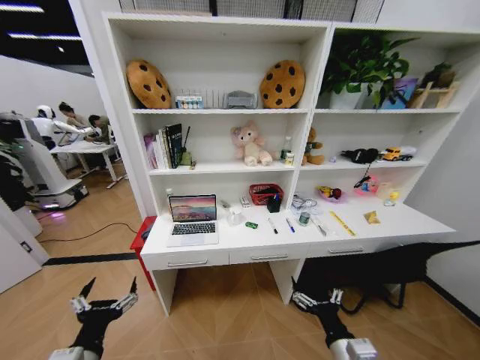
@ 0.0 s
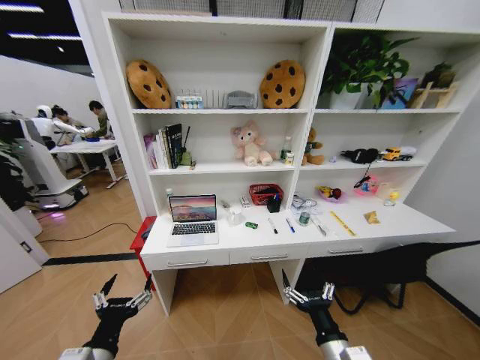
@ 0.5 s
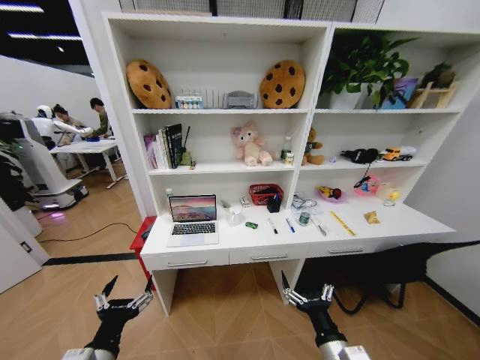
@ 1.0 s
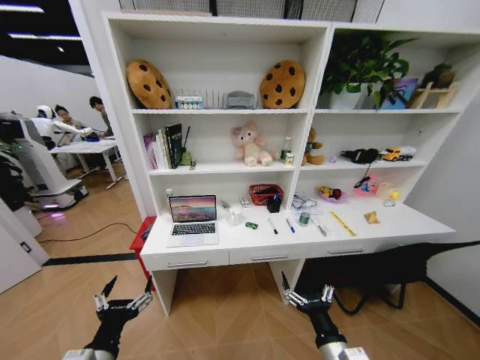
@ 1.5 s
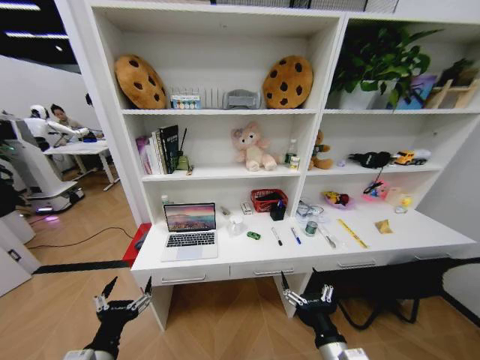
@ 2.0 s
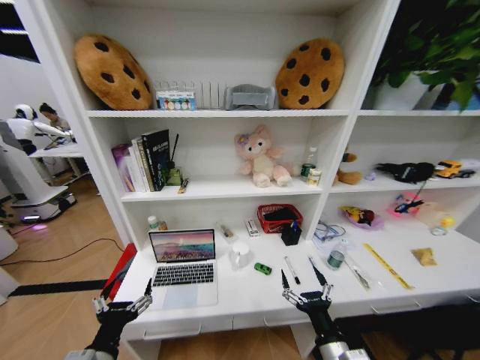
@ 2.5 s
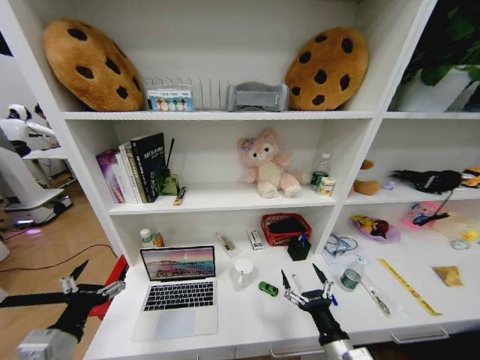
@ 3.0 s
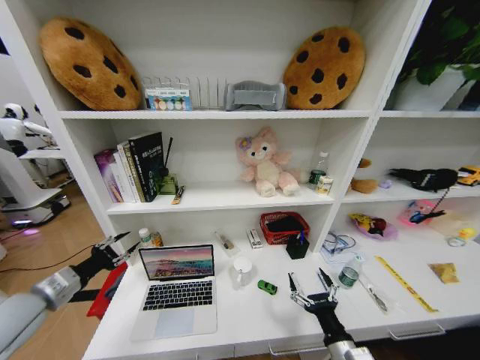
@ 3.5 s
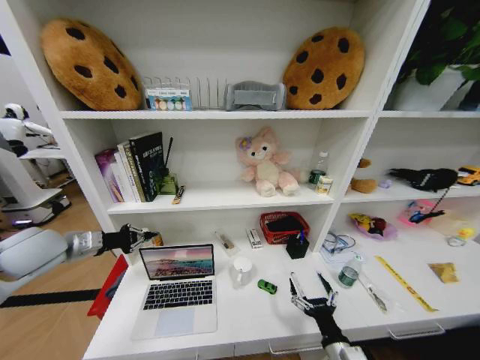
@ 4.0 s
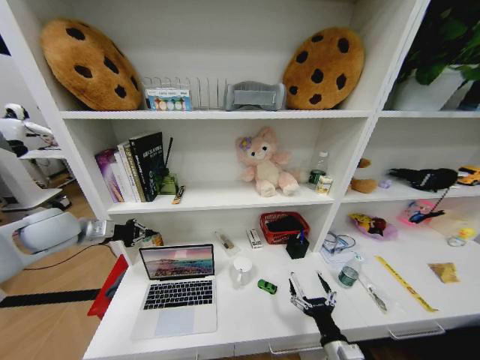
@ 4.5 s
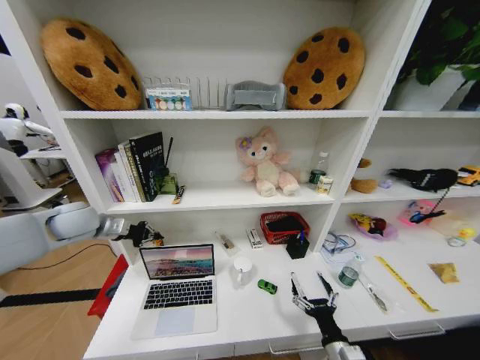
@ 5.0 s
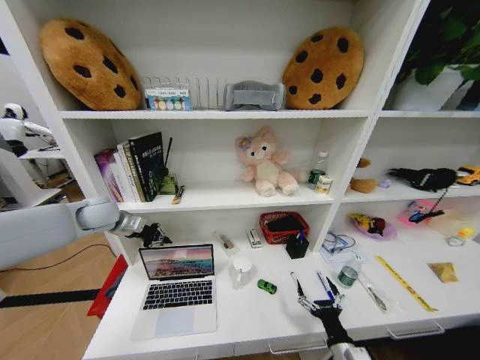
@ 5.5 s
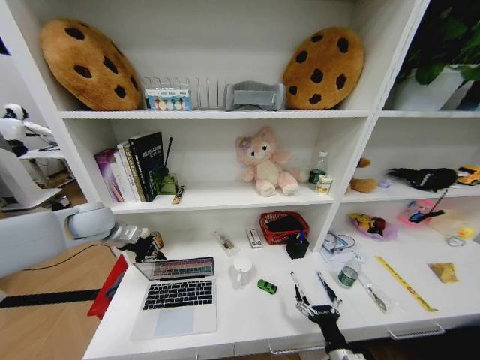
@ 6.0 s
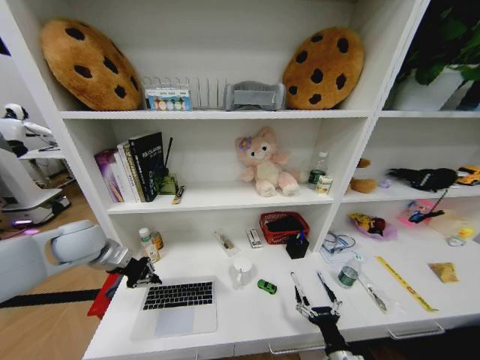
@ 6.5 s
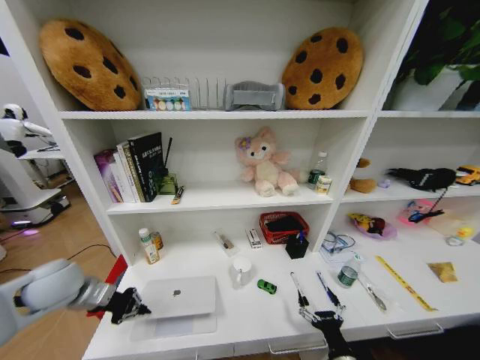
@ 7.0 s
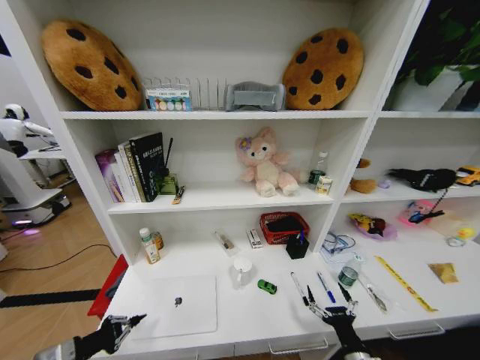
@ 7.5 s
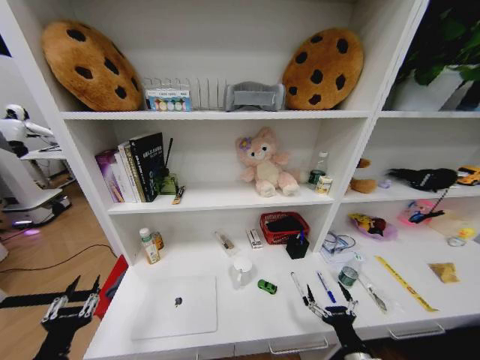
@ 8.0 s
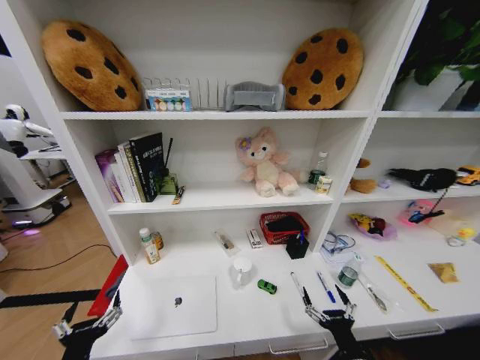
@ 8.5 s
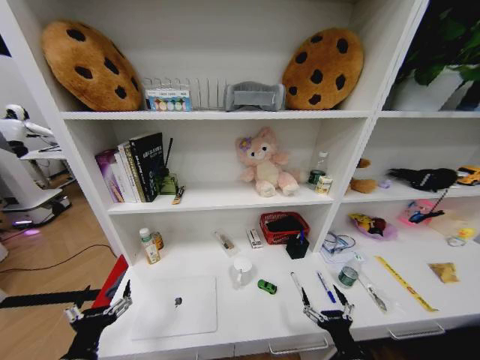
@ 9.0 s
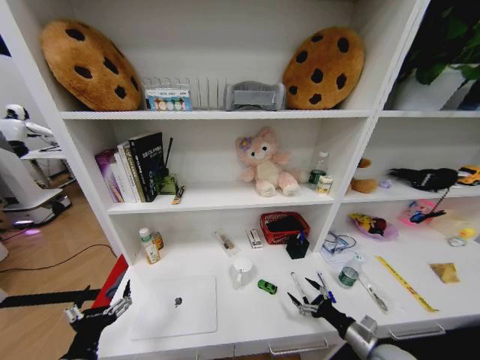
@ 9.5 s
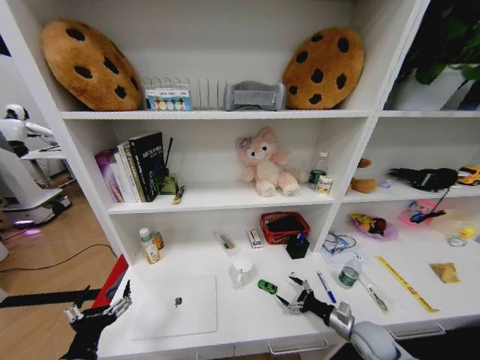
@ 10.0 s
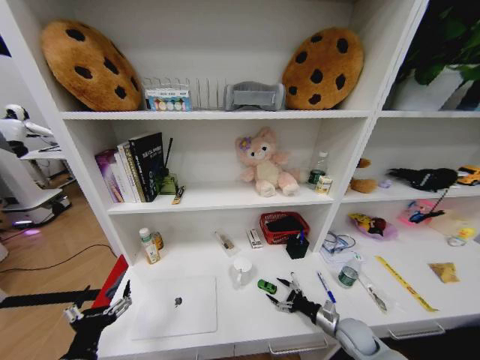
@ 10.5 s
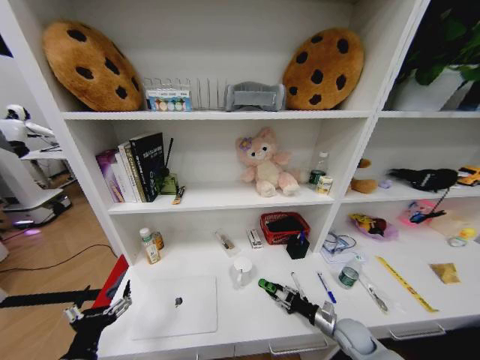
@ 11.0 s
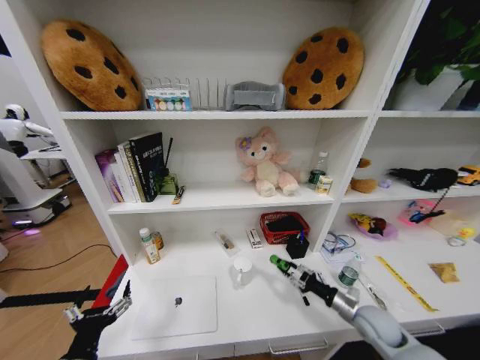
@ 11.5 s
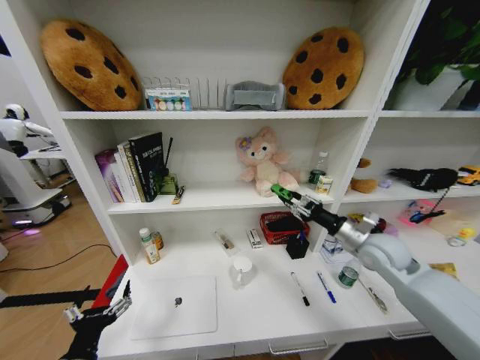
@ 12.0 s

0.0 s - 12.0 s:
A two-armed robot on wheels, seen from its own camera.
Task of the whole recording: Organize the objects on the table.
2.0 s - 4.0 s: The left gripper travels forward, to the left and upward by about 30 cm, and closes up. The right gripper heads downward, covering some 5 cm.
4.0 s - 6.0 s: The left gripper travels forward and to the right by approximately 10 cm.
6.0 s - 8.0 s: The left gripper travels backward and downward by roughly 40 cm, and opens its fingers.
8.0 s - 10.0 s: The right gripper is displaced forward and to the right by some 15 cm. The left gripper moves to the right, some 5 cm, and opens.
10.0 s - 12.0 s: The right gripper shifts about 30 cm upward and forward, and closes up.

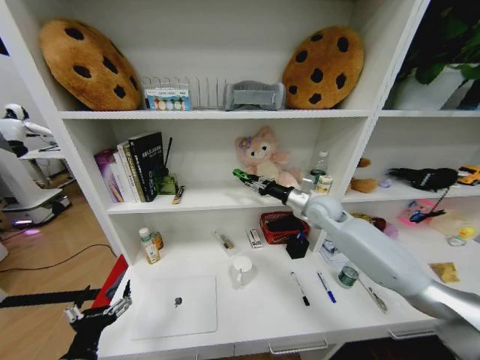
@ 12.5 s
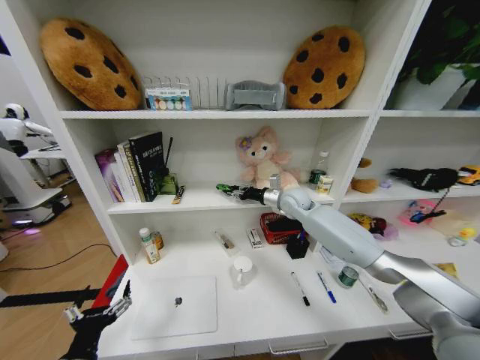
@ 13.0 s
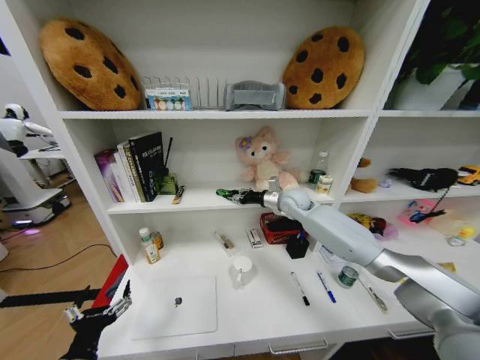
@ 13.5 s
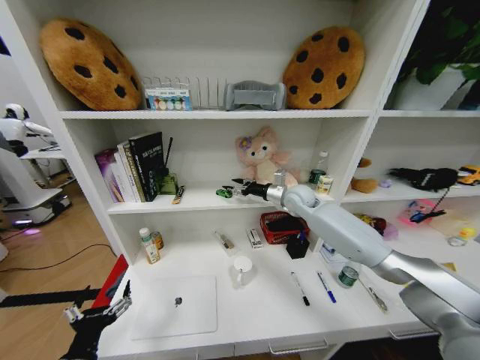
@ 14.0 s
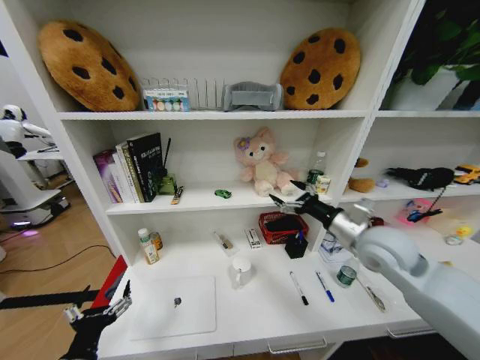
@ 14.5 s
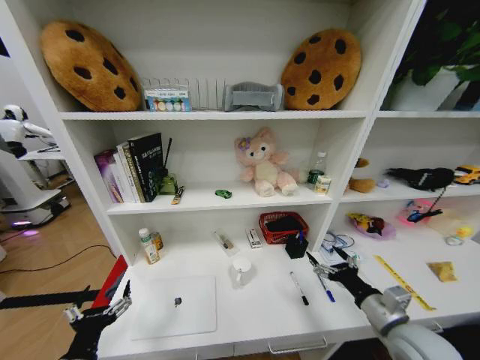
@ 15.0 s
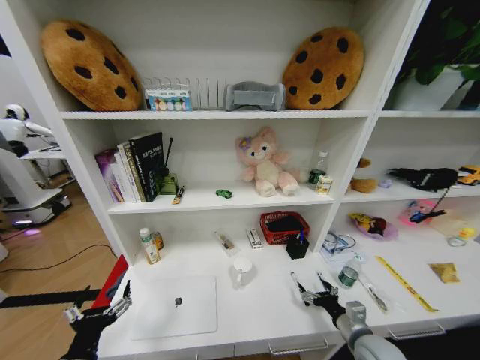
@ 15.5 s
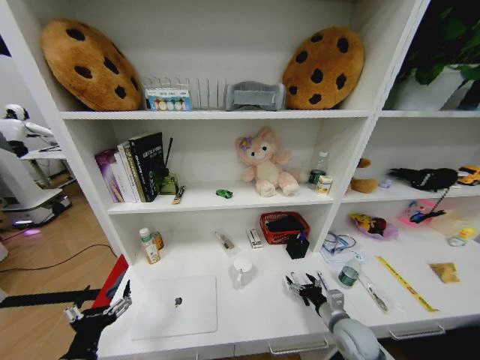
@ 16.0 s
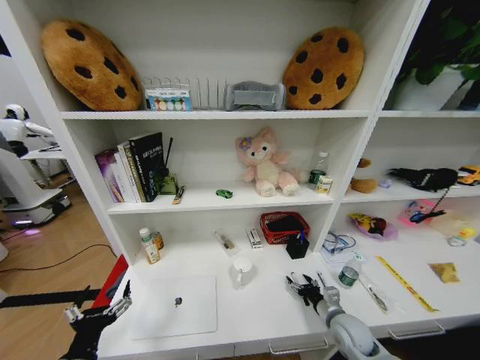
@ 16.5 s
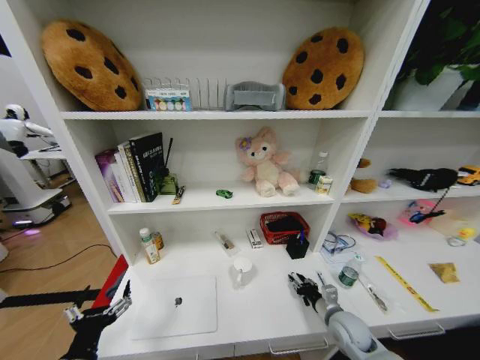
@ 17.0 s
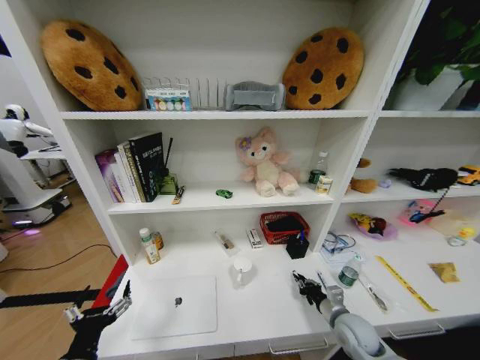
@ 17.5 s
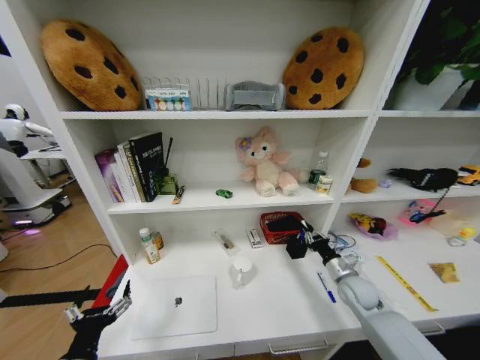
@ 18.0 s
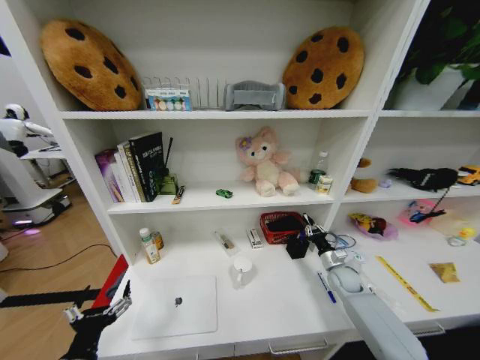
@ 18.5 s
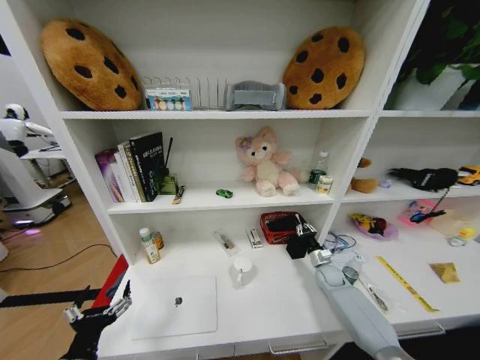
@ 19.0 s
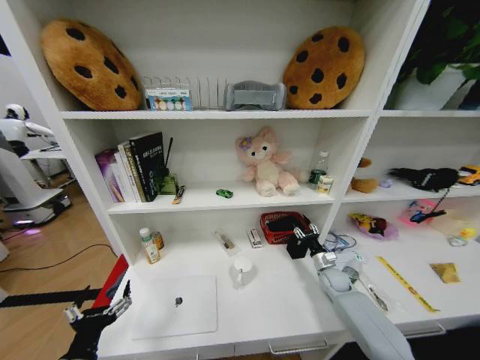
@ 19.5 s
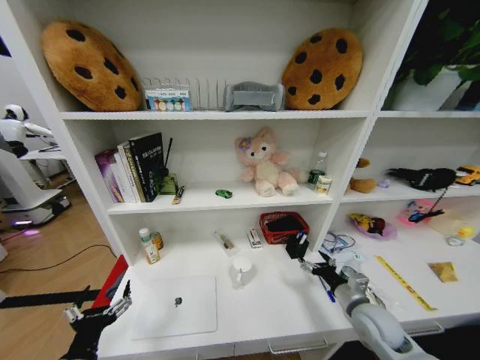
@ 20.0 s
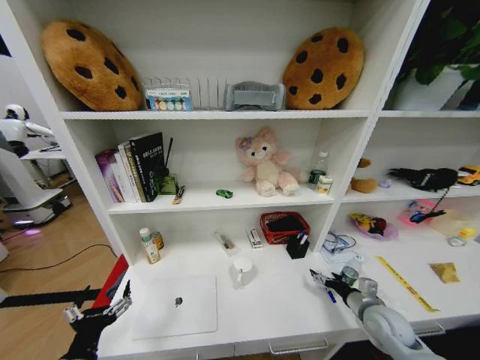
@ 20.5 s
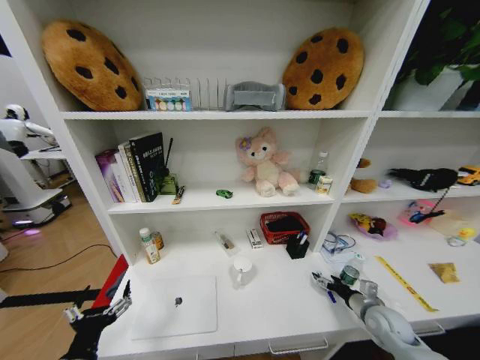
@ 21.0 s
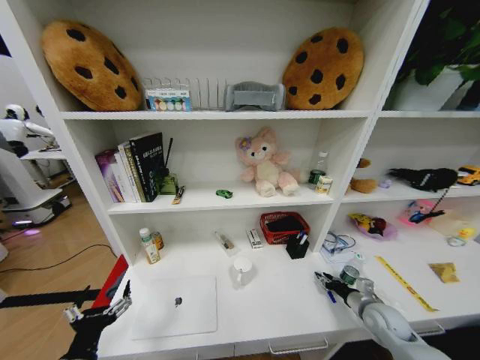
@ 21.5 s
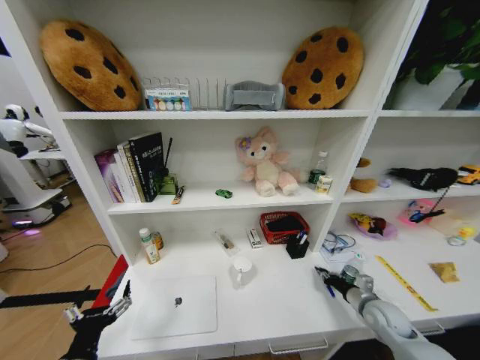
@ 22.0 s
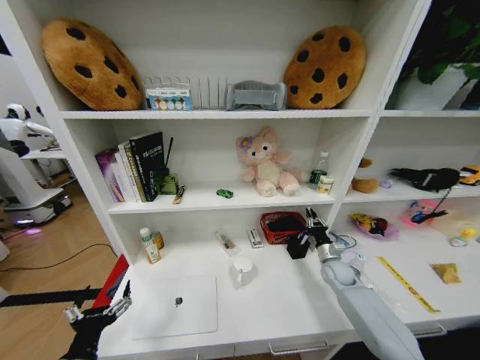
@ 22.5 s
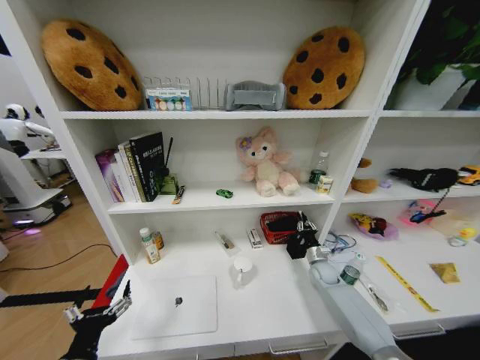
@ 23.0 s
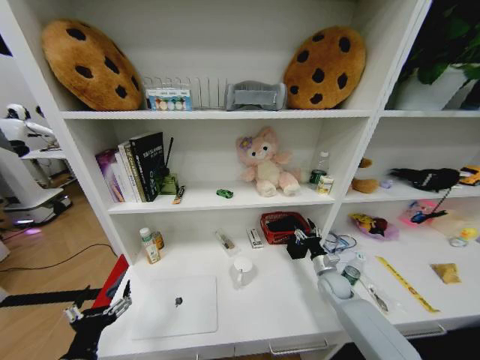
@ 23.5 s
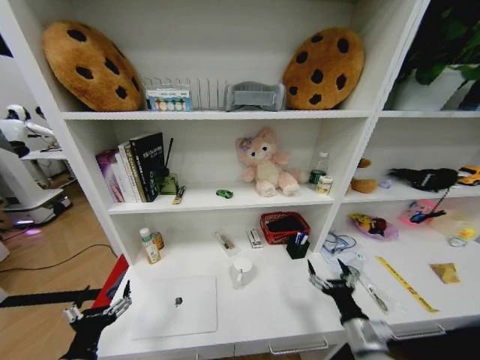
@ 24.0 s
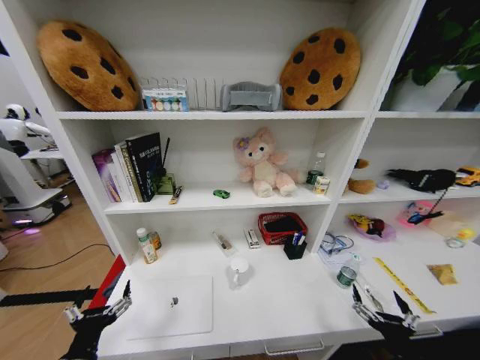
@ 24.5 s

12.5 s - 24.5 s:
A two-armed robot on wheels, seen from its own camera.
Task of the whole recording: Organize the objects on the table.
12.5 s - 14.5 s: The right gripper is displaced backward by some 15 cm, and opens up.
14.5 s - 16.5 s: The right gripper goes approximately 30 cm downward.
16.5 s - 18.5 s: The right gripper is displaced forward and to the right by some 15 cm, and closes up.
18.5 s - 20.5 s: The right gripper shifts roughly 15 cm backward, and opens.
20.5 s - 22.5 s: The right gripper travels forward by about 15 cm, and closes.
22.5 s - 24.5 s: The right gripper heads backward, covering some 35 cm, and opens.

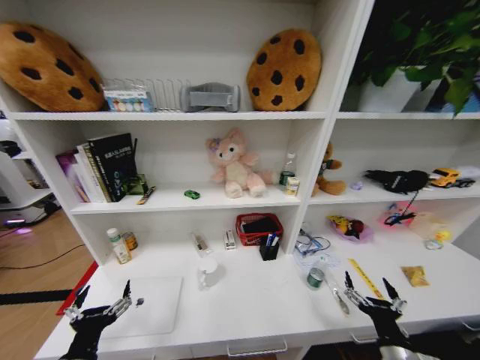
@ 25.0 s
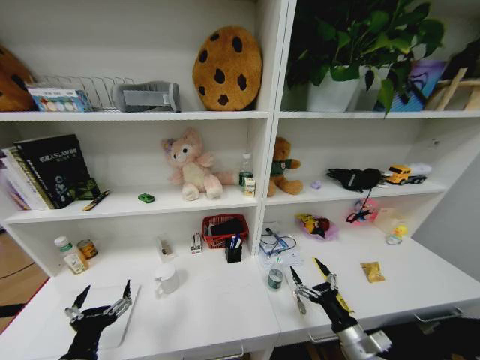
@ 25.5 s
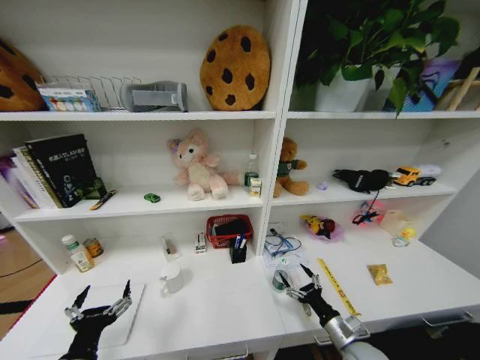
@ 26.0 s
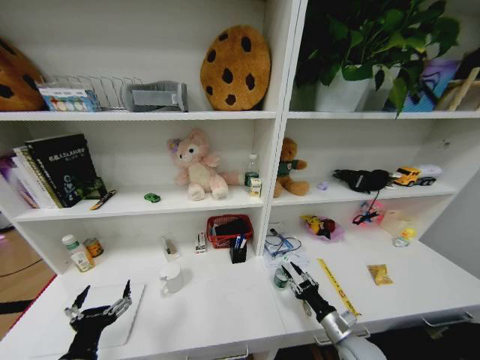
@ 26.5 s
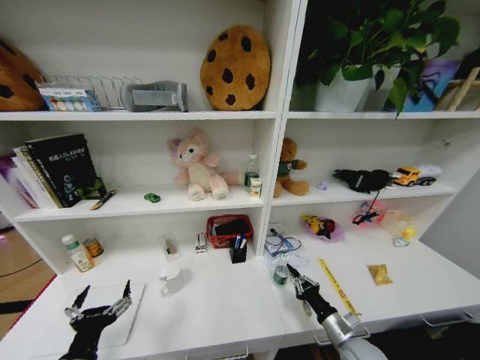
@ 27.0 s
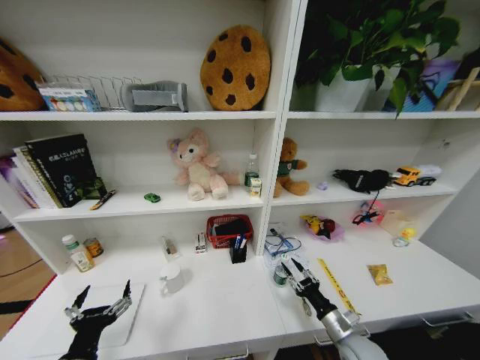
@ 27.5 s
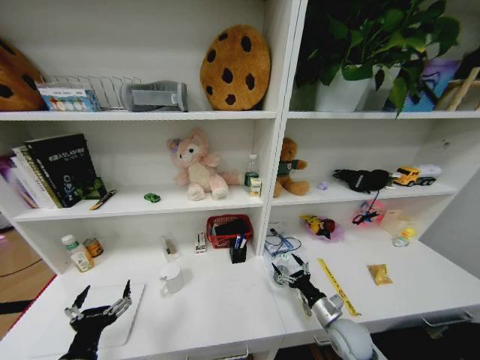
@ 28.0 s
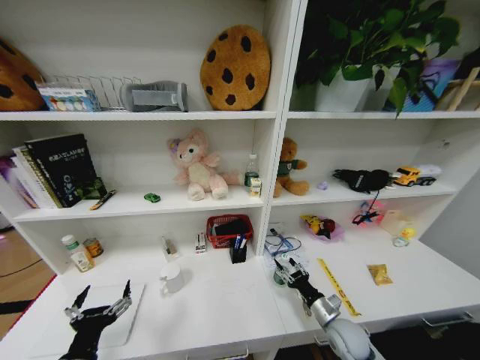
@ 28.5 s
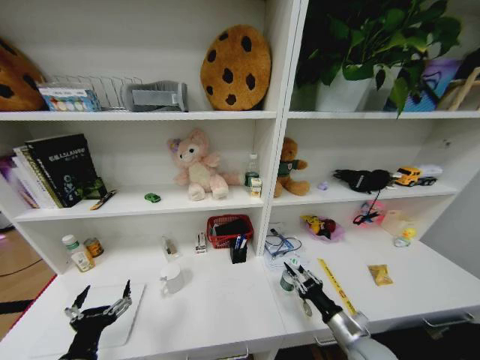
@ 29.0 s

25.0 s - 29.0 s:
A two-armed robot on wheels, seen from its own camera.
Task of the whole recording: Organize the objects on the table.
25.0 s - 27.0 s: The right gripper heads forward and downward, covering about 10 cm, and closes up.
27.0 s - 29.0 s: The right gripper opens, then closes once more.
